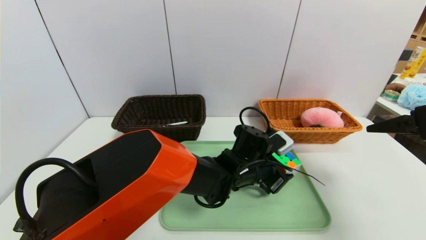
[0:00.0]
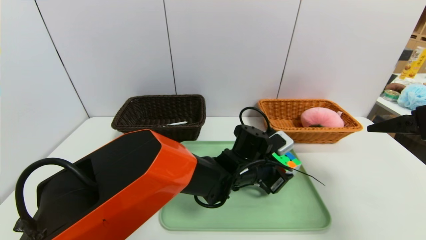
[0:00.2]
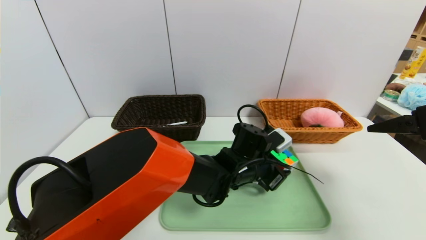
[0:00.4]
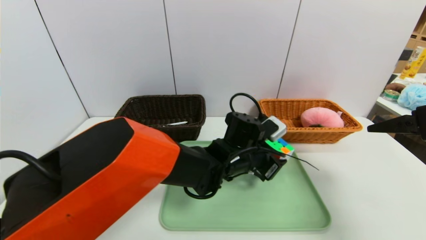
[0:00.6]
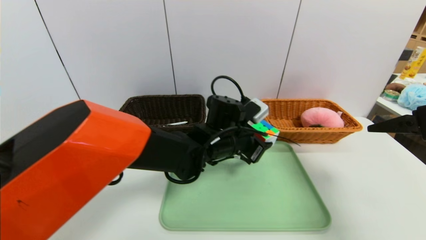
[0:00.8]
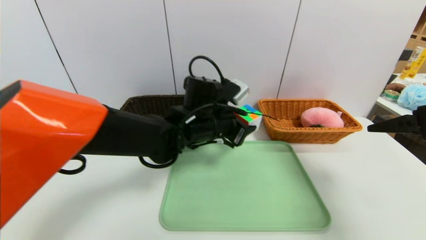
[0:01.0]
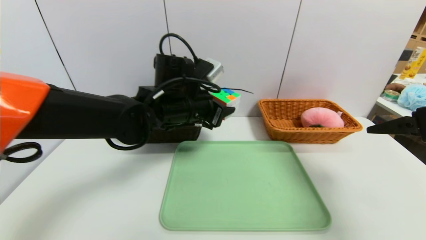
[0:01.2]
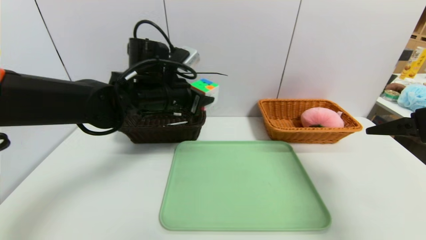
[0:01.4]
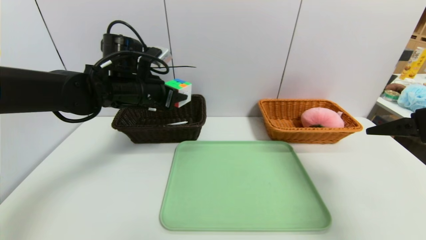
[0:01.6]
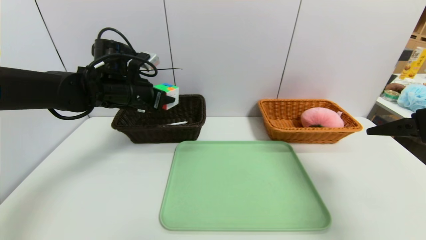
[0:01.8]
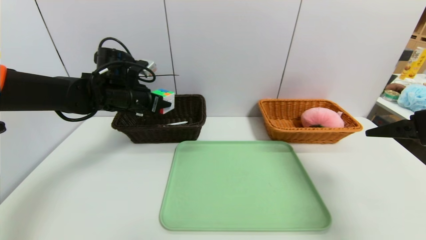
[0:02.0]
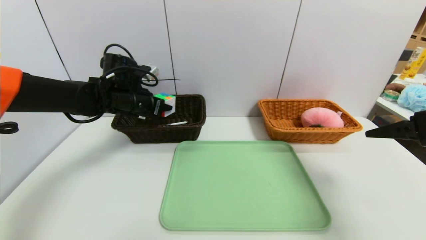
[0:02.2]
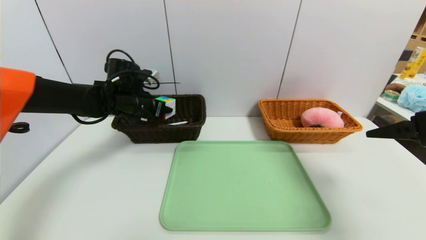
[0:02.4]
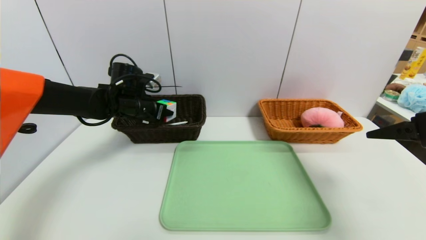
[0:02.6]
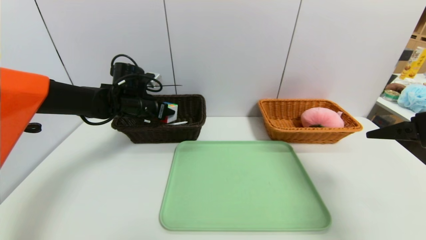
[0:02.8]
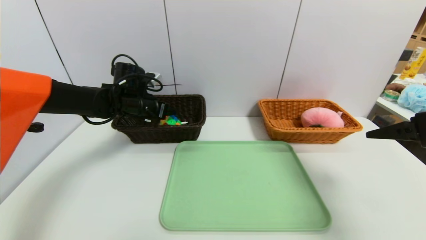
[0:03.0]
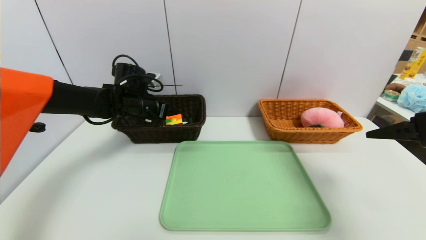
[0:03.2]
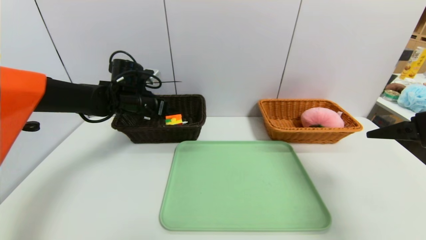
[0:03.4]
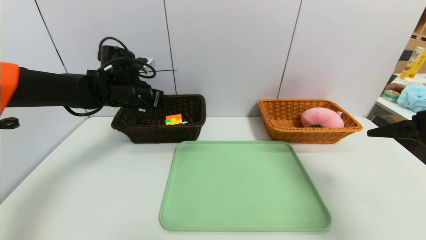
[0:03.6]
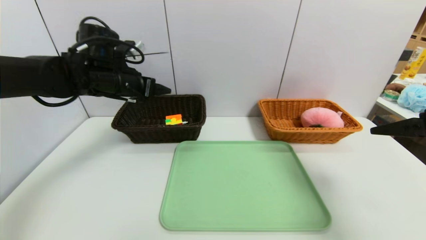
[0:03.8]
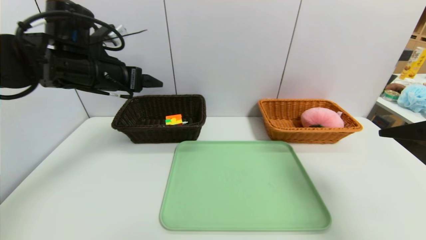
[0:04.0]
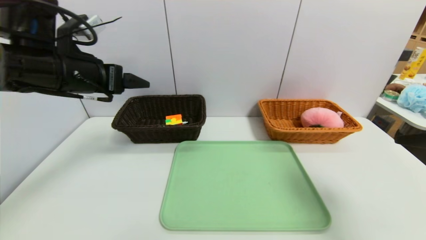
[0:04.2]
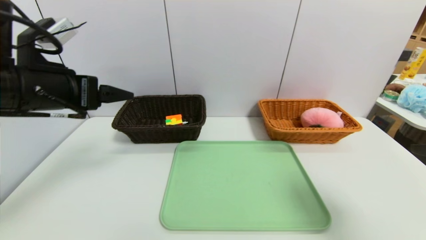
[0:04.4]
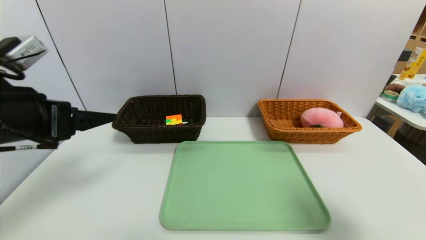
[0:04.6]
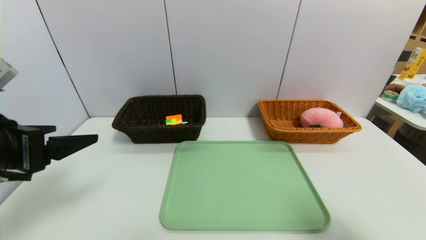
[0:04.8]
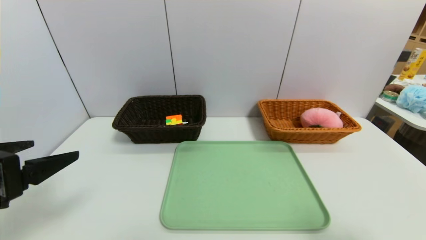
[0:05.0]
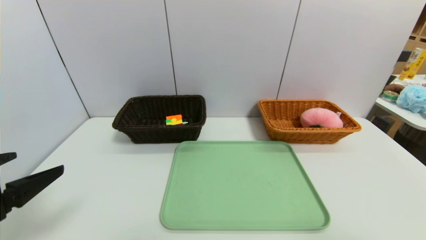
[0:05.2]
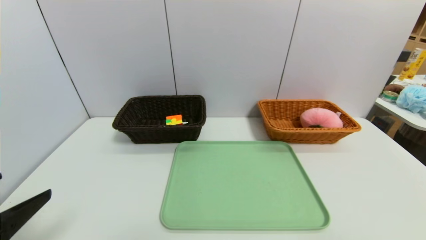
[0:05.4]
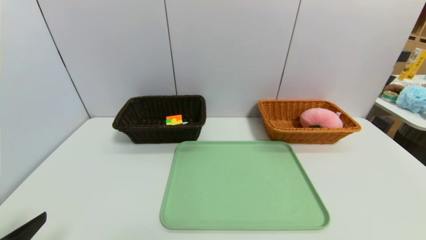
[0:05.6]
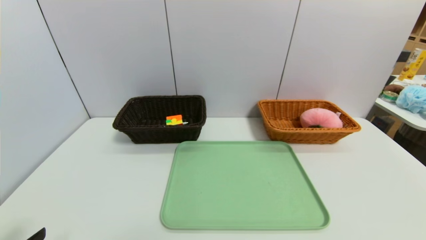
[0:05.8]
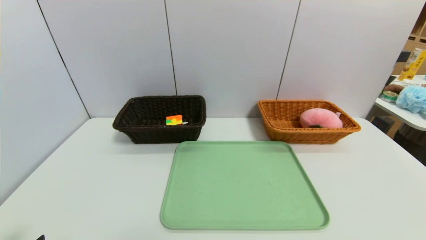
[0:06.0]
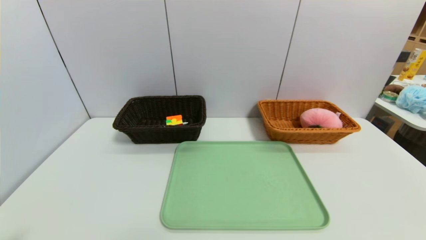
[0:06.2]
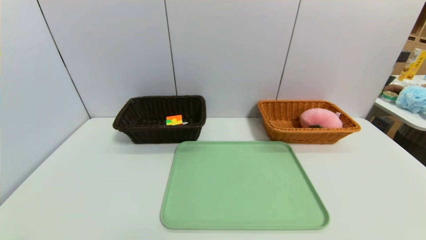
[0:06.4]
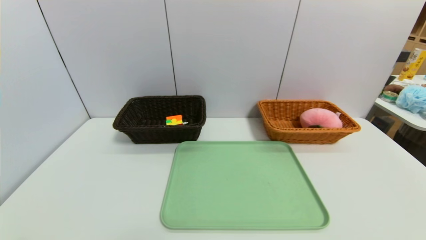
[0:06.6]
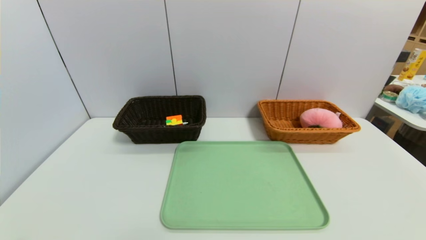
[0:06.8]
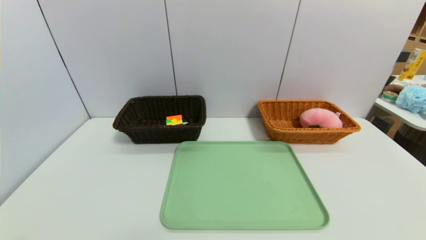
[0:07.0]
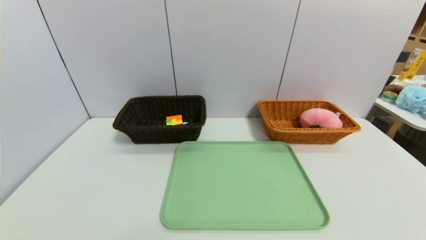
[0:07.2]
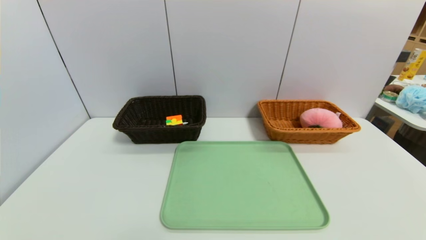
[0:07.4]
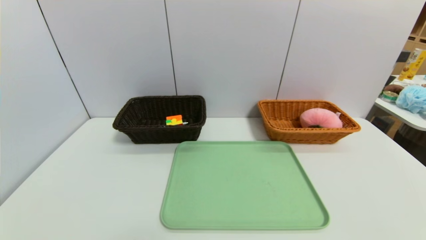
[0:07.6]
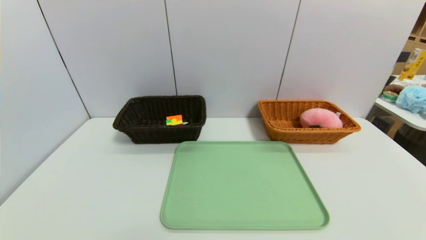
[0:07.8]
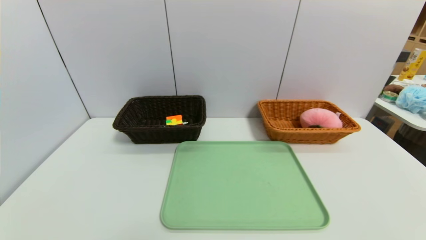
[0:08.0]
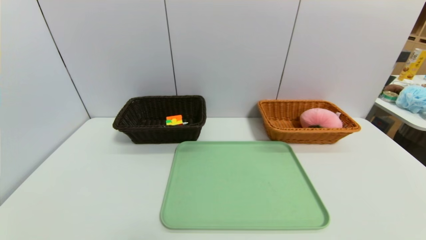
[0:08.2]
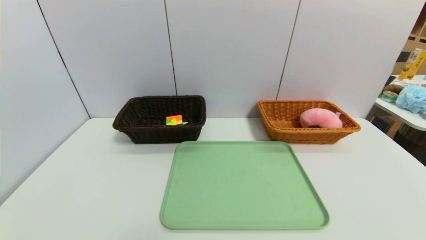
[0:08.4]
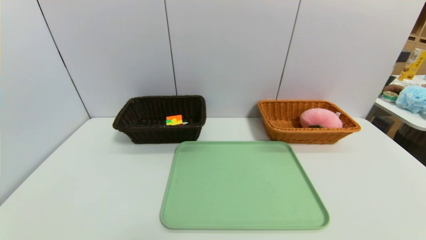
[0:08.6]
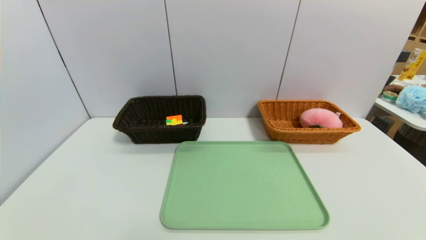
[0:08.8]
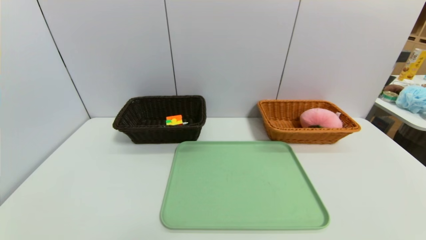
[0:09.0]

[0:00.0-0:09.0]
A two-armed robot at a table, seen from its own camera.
Task of the whole recording: place the food in the right basket with the right gripper, and place the non food items in the left basket with the left gripper.
Step, 0:00.0 to 0:03.4: Grasp the rubiks cube and put it in the left basket.
0:00.0 to 0:01.6: The left gripper is displaced to the left and upward by about 30 cm.
0:01.6 to 0:03.0: The left gripper goes approximately 10 cm forward and downward.
0:03.0 to 0:04.4: The right gripper moves backward, approximately 10 cm. The left gripper shifts roughly 25 cm backward and upward.
0:04.4 to 0:06.0: The two grippers go approximately 20 cm backward and downward.
